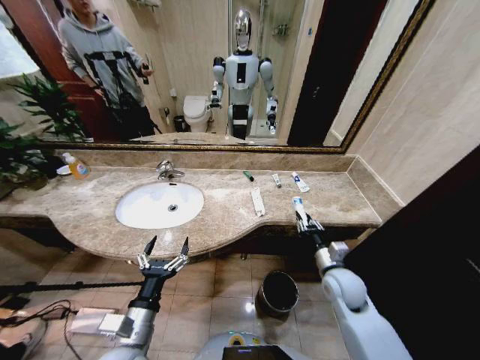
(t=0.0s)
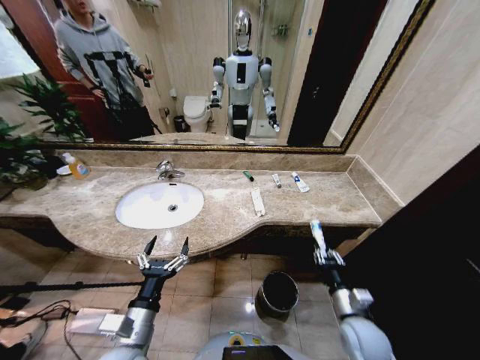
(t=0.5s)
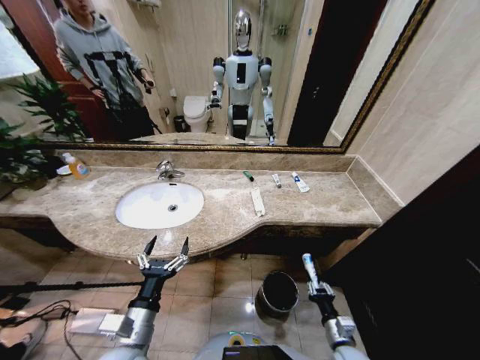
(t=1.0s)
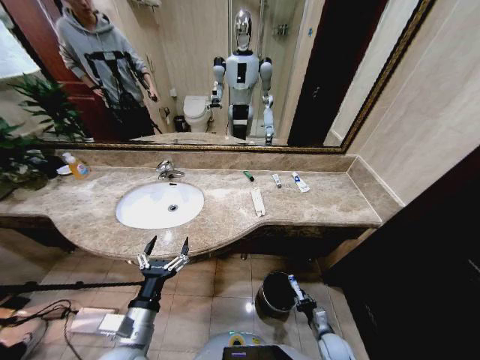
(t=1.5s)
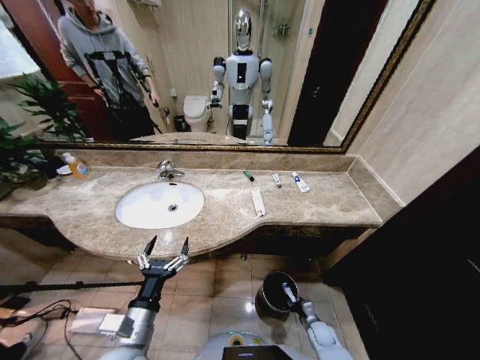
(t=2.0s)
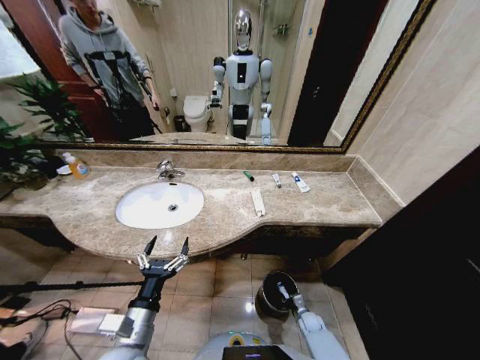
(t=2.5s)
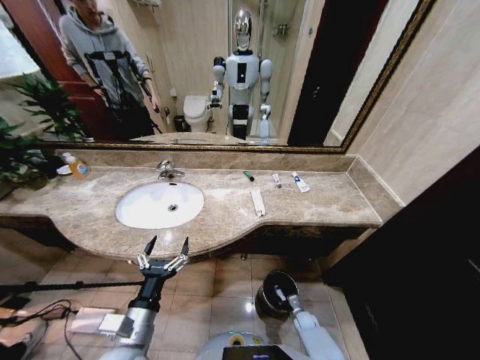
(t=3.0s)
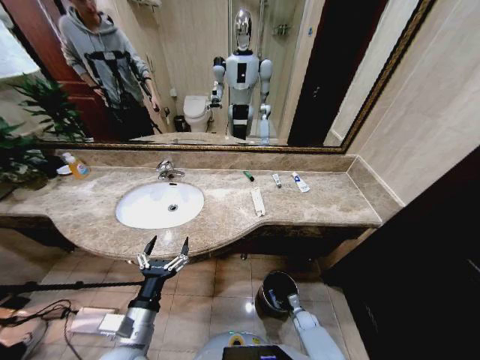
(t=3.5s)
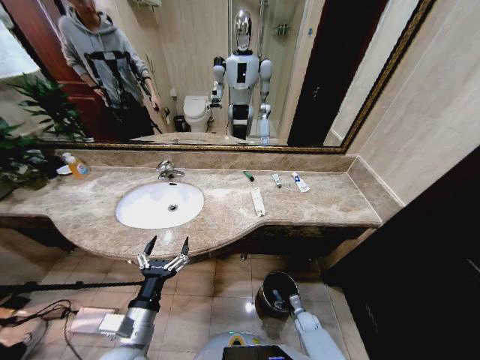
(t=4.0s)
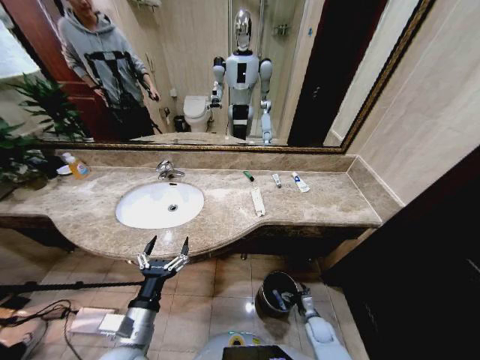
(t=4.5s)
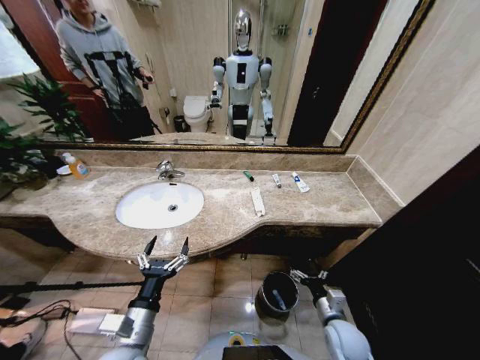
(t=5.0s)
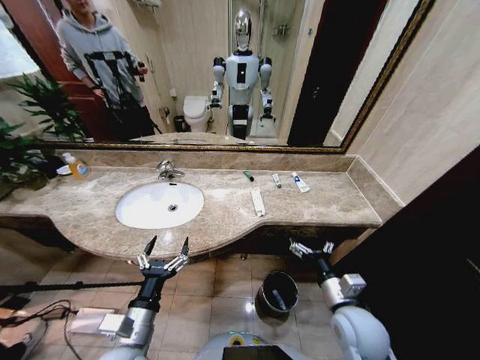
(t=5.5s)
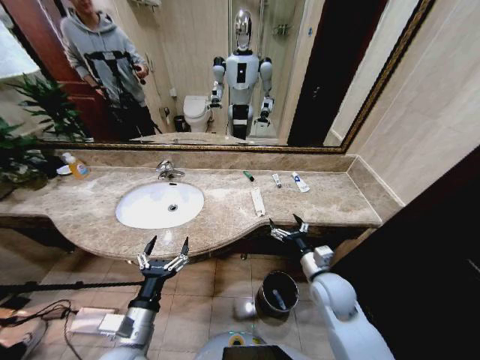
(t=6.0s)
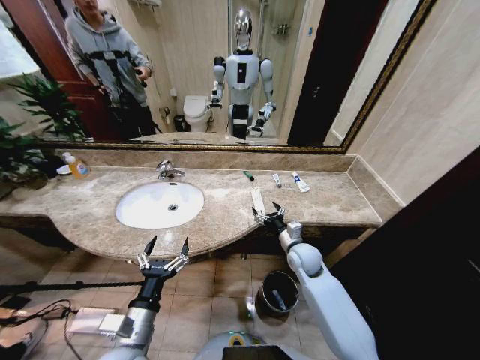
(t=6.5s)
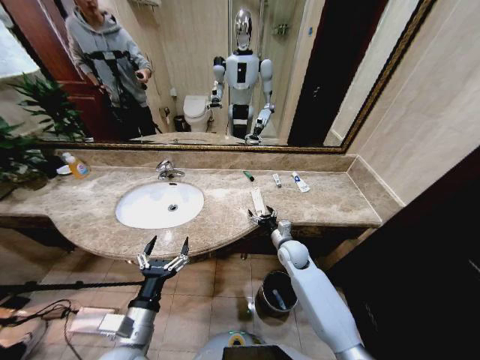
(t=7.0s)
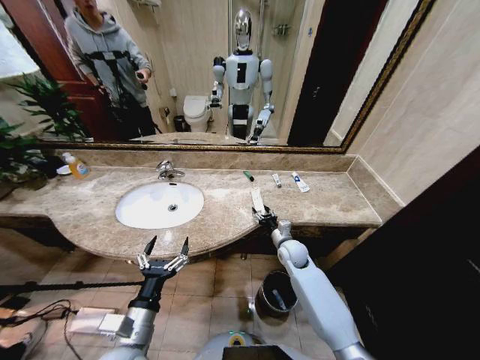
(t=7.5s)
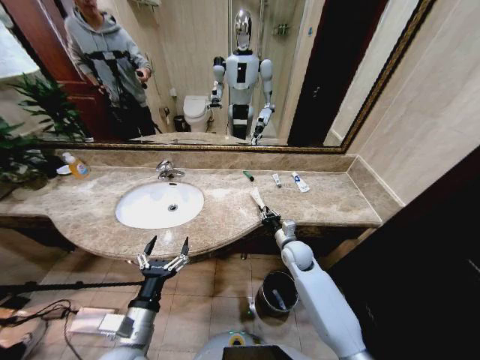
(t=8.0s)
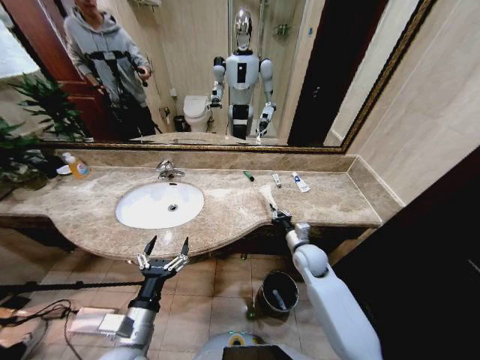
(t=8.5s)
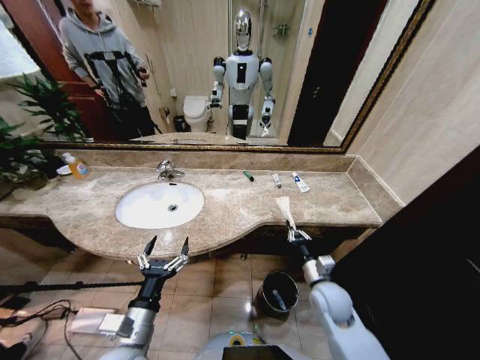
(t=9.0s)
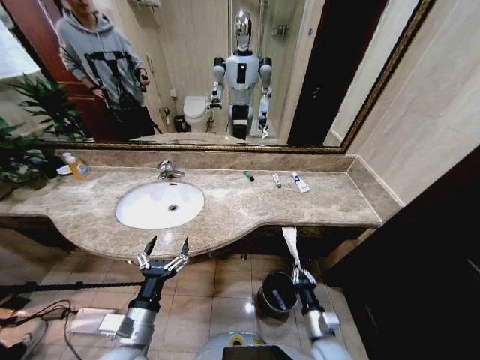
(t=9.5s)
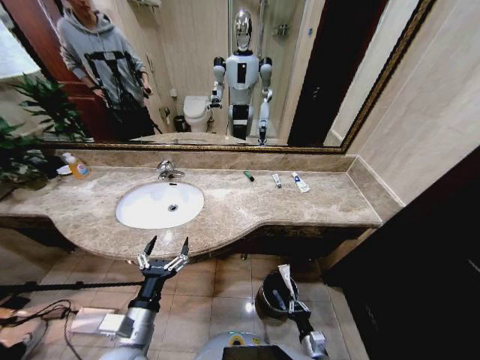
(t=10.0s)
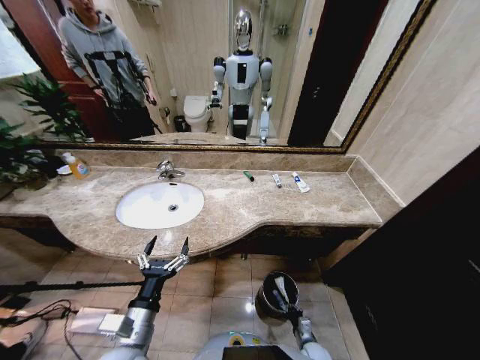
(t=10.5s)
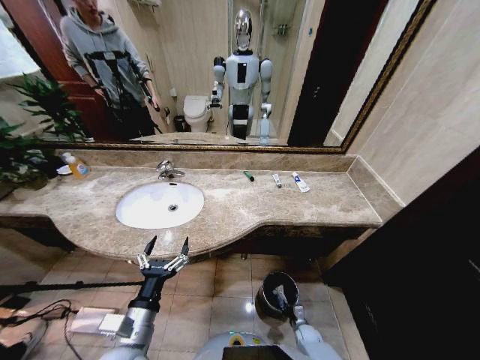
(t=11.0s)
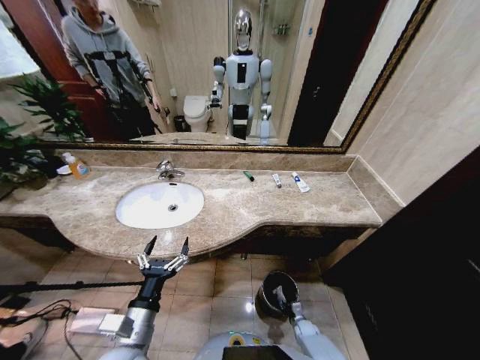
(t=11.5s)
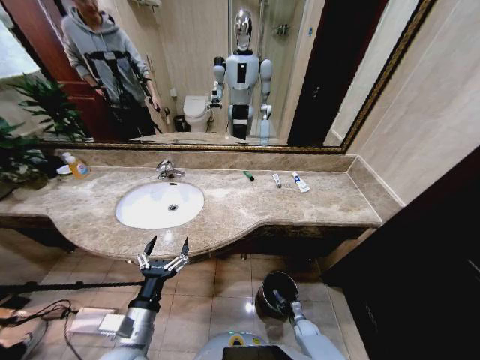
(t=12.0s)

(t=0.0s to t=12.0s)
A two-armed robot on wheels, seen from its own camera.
Task of the whole recording: Pick up the trash from the sink and place it in the trash bin.
t=0.0s - t=2.0s: The right gripper is displaced downward by approximately 30 cm.
t=2.0s - t=4.0s: The right gripper ends up some 5 cm from where it was, and opens up.
t=4.0s - t=6.0s: The right gripper moves upward, some 35 cm.
t=6.0s - t=8.0s: The right gripper moves forward, roughly 15 cm, and closes.
t=8.0s - t=10.0s: The right gripper travels backward and downward by about 35 cm.
t=10.0s - t=12.0s: The right gripper goes roughly 20 cm downward and forward, and opens up.

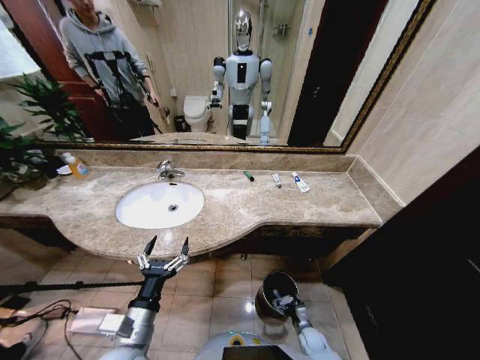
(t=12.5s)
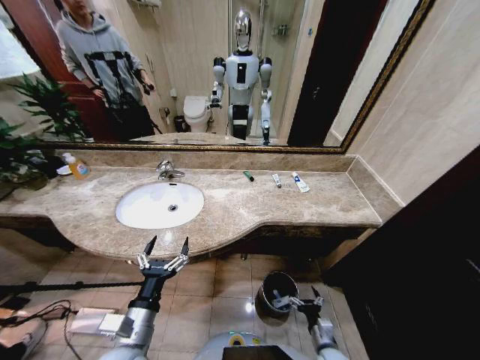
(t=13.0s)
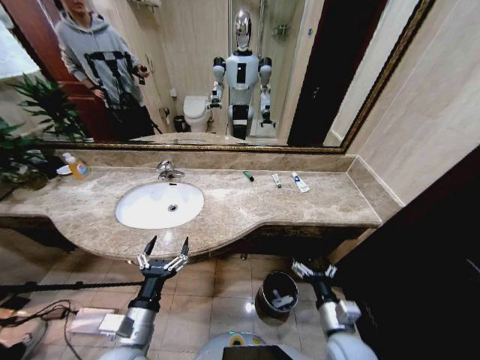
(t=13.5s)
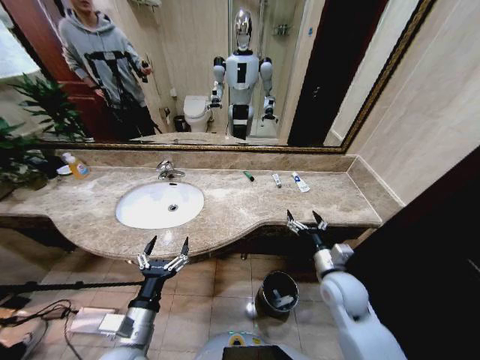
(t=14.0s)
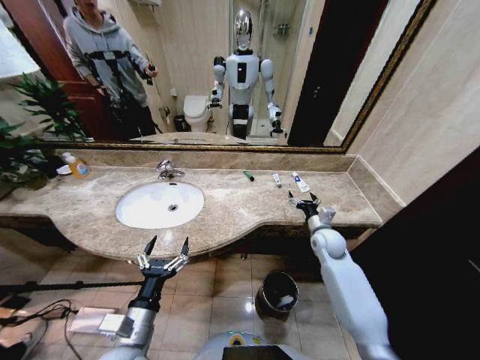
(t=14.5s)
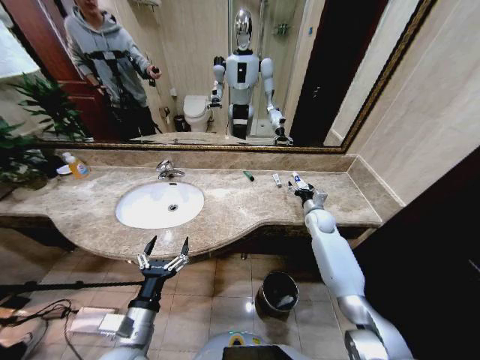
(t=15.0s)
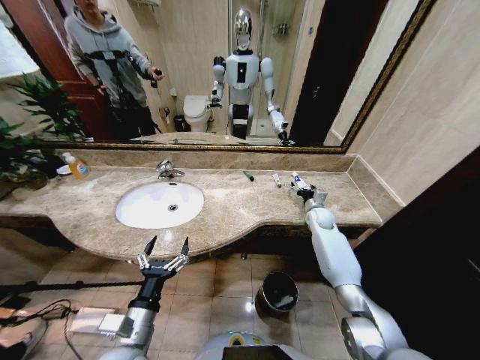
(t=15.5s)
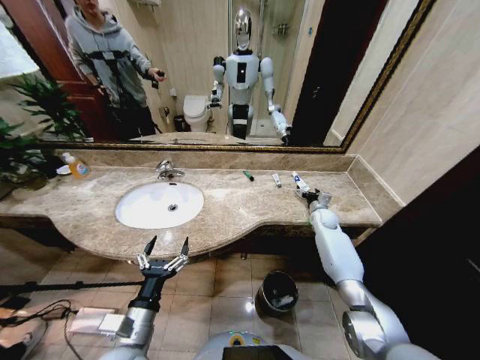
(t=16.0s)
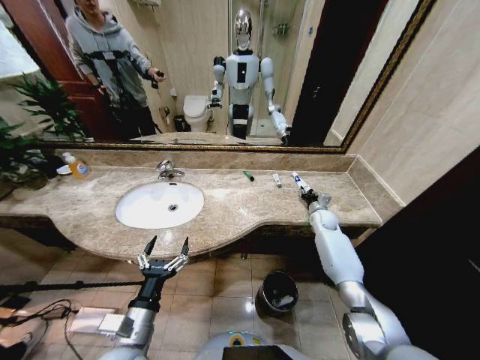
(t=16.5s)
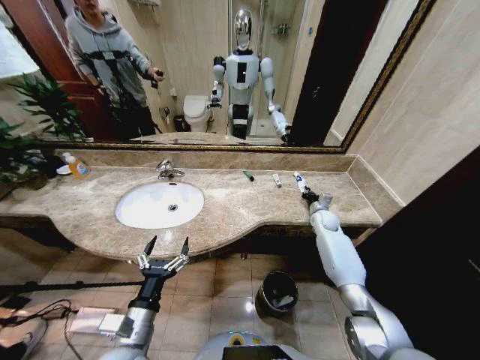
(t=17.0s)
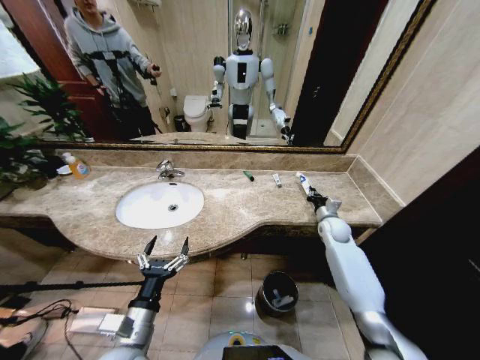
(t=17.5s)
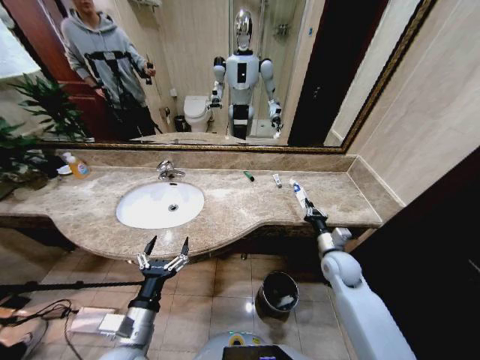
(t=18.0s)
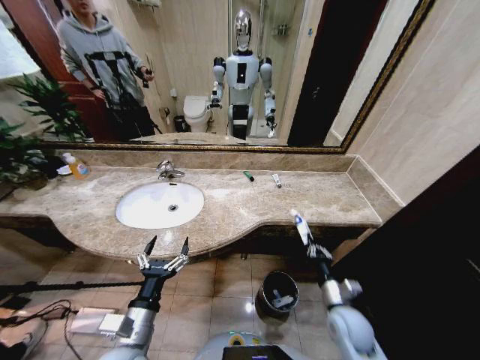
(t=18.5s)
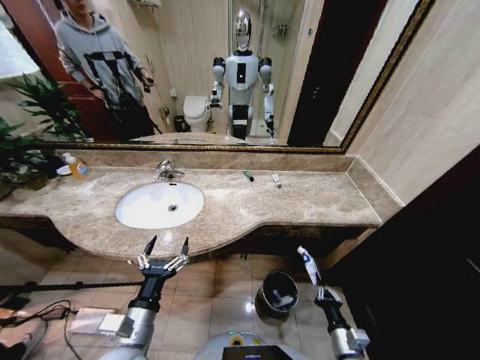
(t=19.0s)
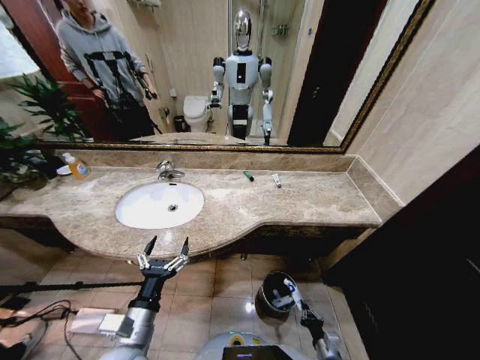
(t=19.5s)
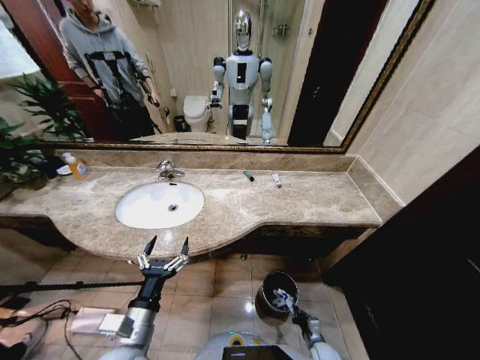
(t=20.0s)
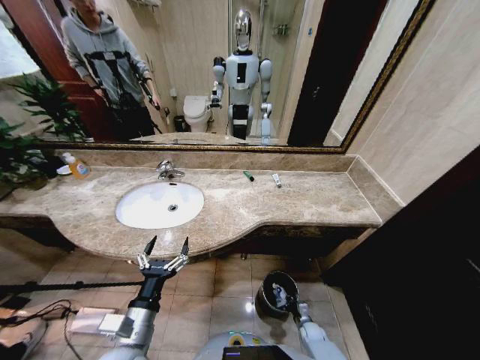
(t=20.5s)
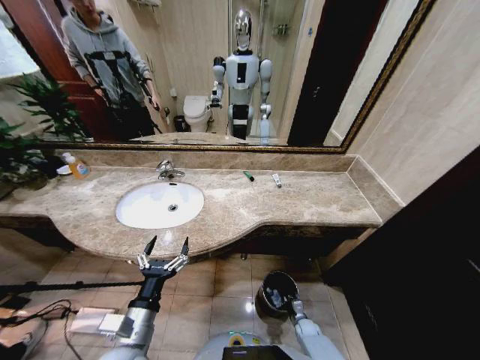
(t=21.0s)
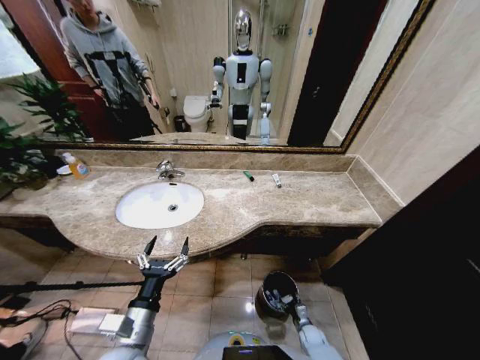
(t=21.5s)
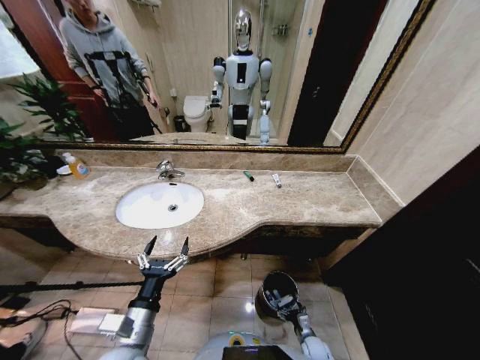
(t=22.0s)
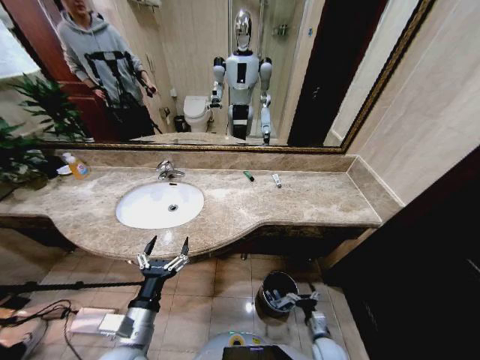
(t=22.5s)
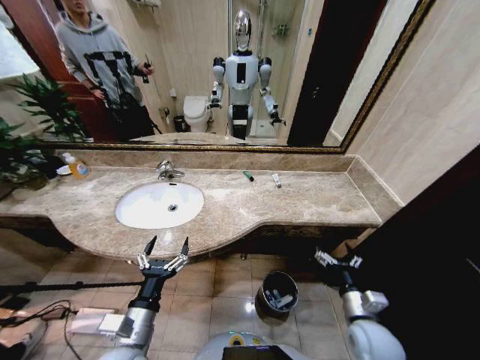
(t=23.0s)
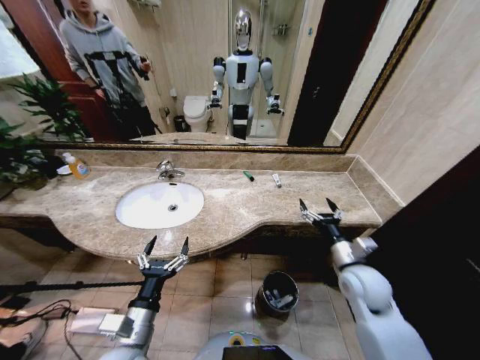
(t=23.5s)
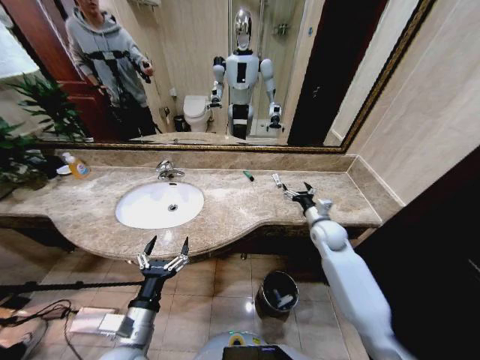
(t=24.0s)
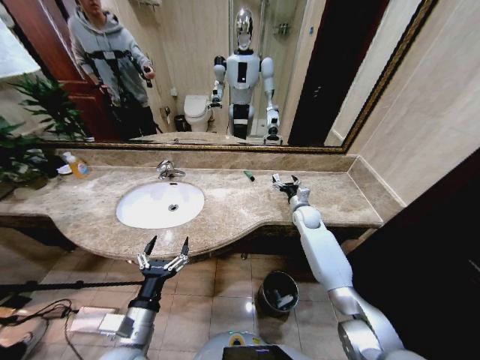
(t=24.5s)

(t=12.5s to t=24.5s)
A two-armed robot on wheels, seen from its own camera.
Task of the whole recording: Pick up the trash from the sink and place it in the trash bin.
t=12.5s - t=14.5s: The right gripper heads upward and forward, covering some 40 cm.
t=14.5s - t=16.5s: The right gripper moves forward and to the right, some 15 cm, and closes up.
t=16.5s - t=18.5s: The right gripper moves backward, roughly 35 cm, and closes its fingers.
t=18.5s - t=20.5s: The right gripper heads downward, covering approximately 30 cm.
t=20.5s - t=22.5s: The right gripper moves upward and backward, some 15 cm, and opens.
t=22.5s - t=24.5s: The right gripper moves forward and upward, roughly 40 cm.

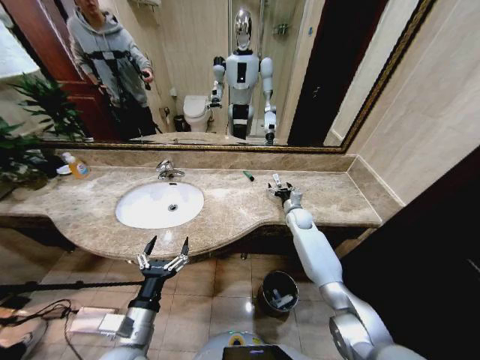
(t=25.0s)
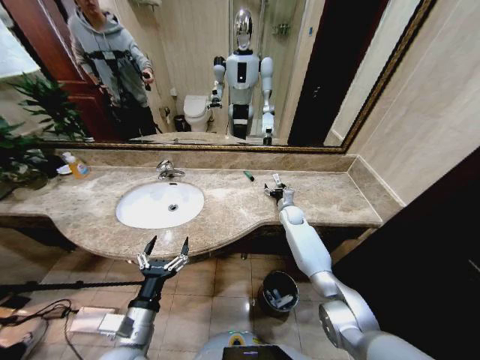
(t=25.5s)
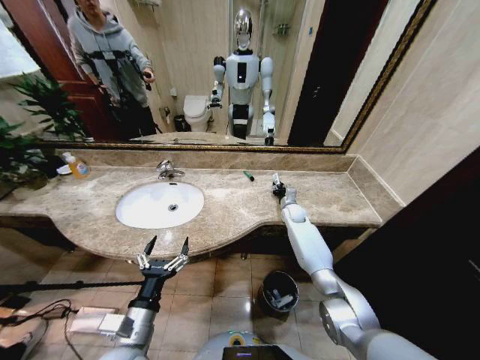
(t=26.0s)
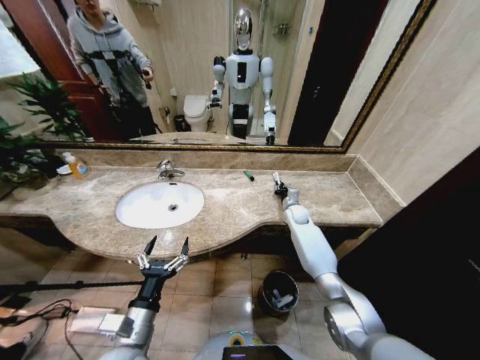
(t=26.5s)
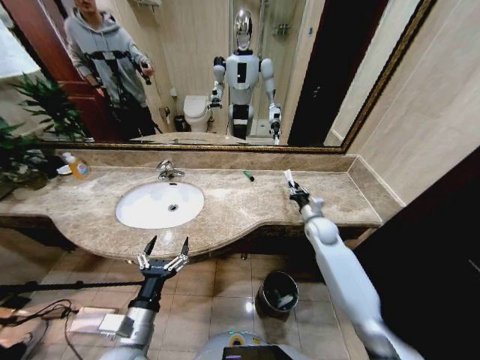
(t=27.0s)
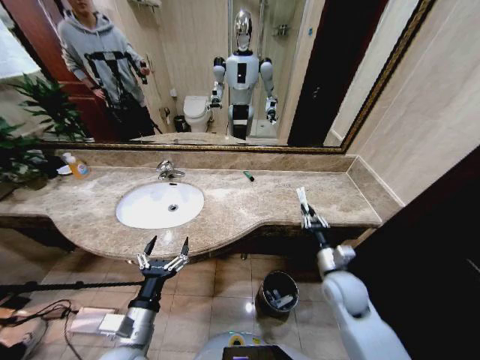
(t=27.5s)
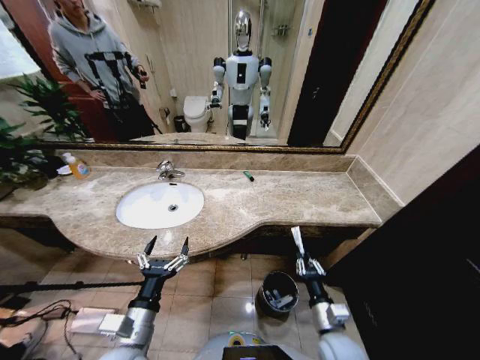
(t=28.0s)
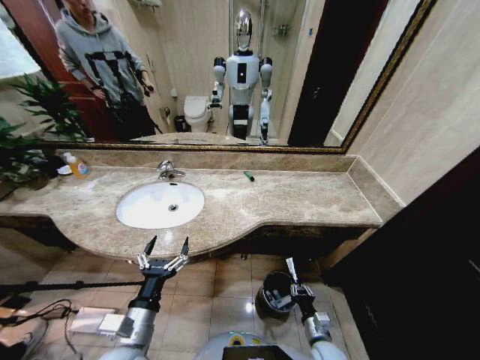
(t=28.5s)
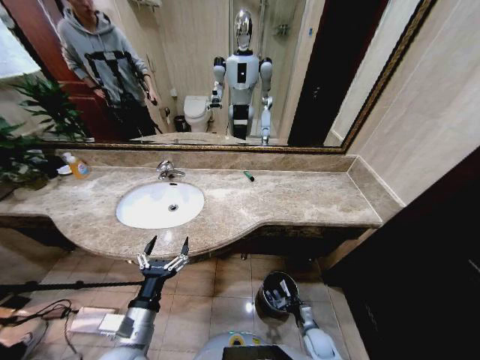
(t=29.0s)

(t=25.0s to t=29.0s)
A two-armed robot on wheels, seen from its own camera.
Task of the whole recording: Pick up the trash from the sink and place it in the trash bin.
t=25.0s - t=27.0s: The right gripper shifts approximately 10 cm backward, and closes its fingers.
t=27.0s - t=29.0s: The right gripper goes about 40 cm downward and backward.
